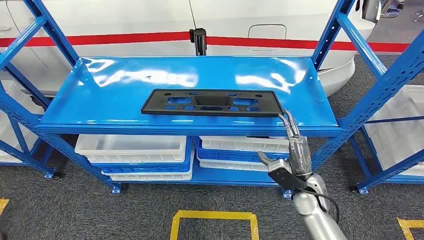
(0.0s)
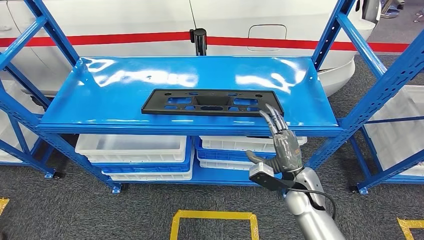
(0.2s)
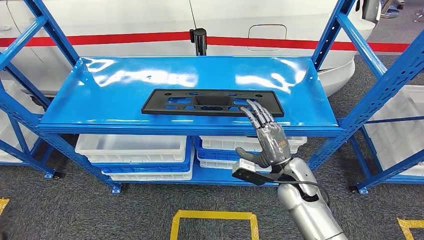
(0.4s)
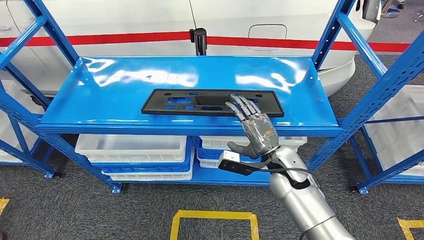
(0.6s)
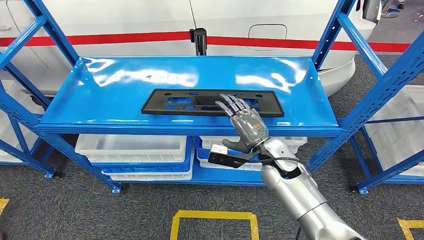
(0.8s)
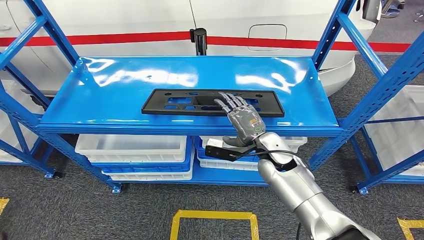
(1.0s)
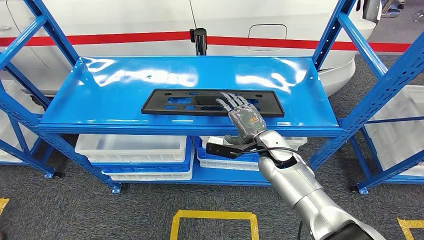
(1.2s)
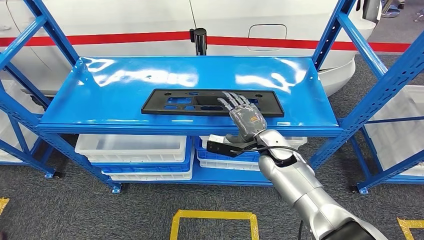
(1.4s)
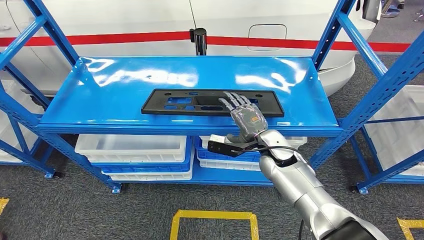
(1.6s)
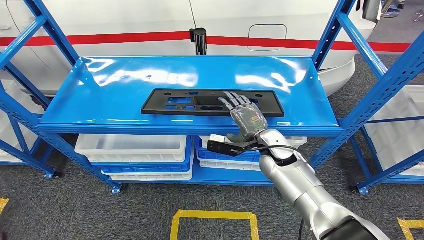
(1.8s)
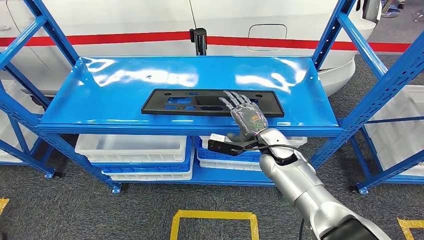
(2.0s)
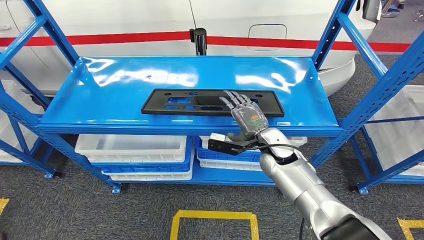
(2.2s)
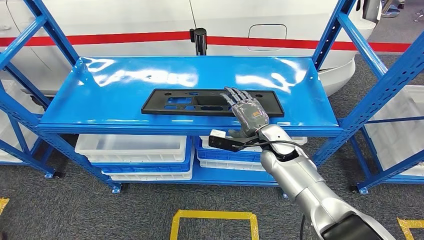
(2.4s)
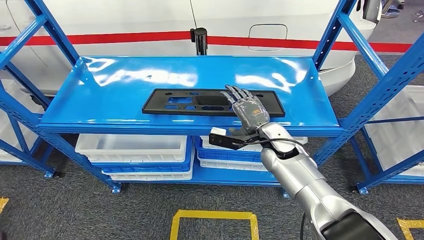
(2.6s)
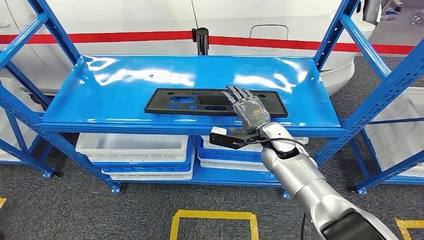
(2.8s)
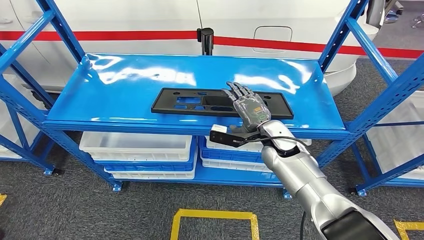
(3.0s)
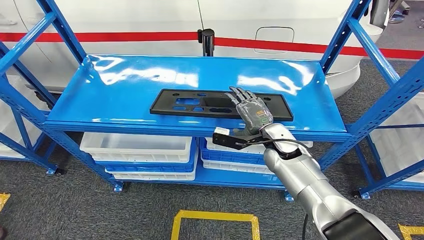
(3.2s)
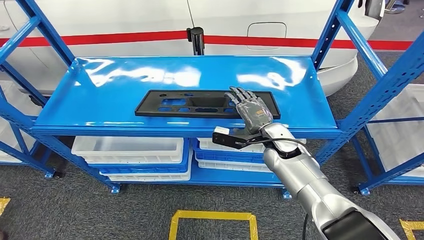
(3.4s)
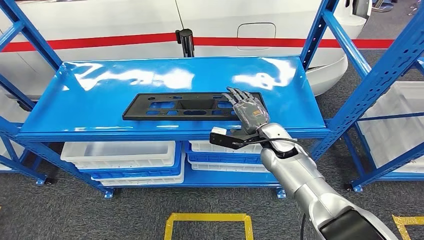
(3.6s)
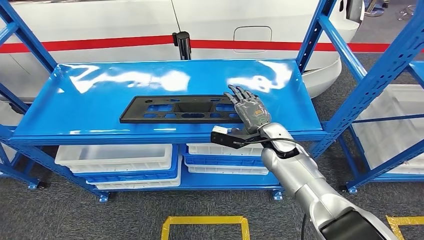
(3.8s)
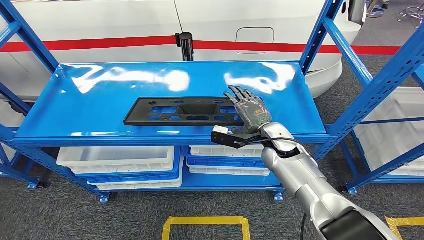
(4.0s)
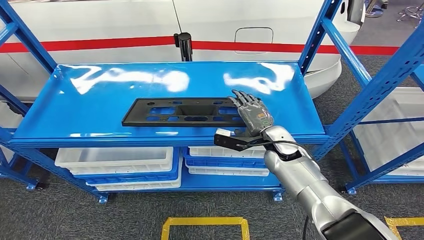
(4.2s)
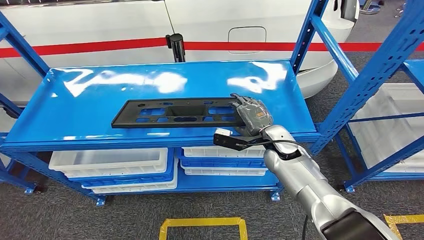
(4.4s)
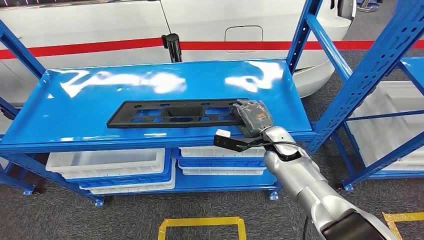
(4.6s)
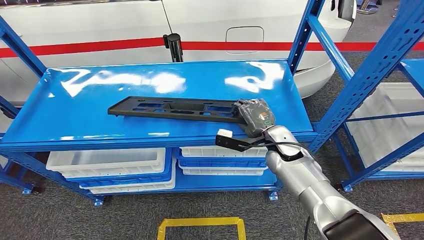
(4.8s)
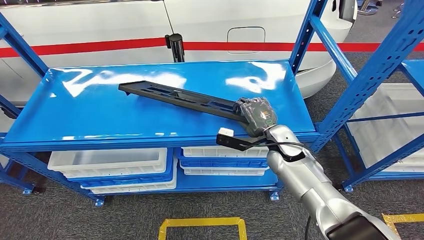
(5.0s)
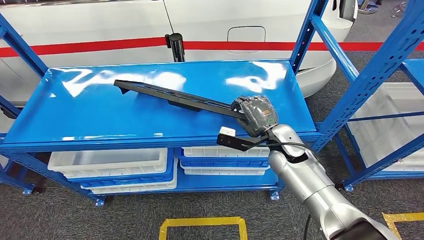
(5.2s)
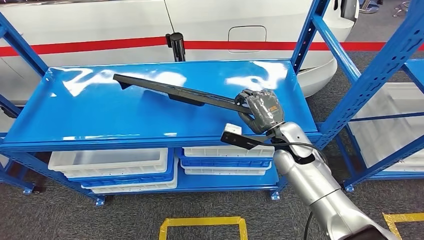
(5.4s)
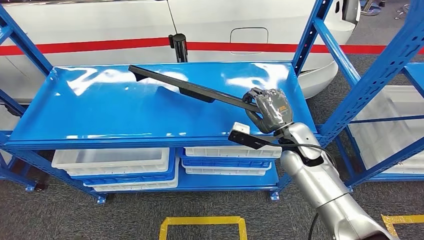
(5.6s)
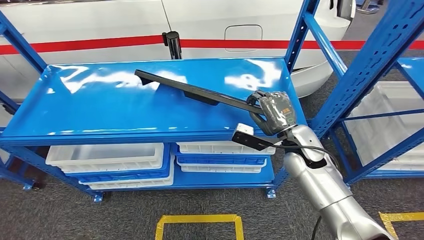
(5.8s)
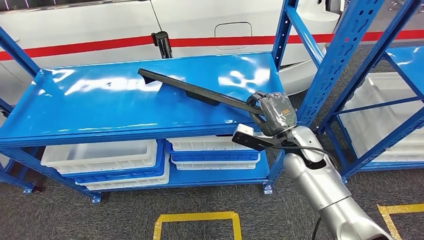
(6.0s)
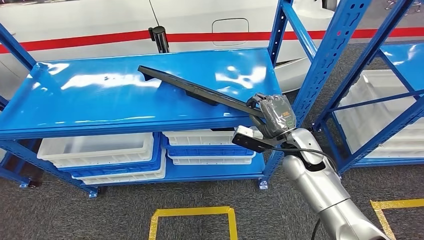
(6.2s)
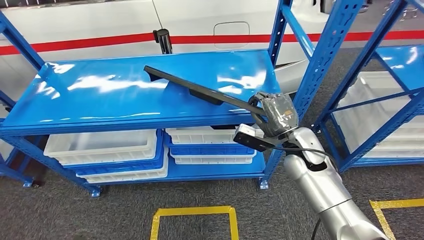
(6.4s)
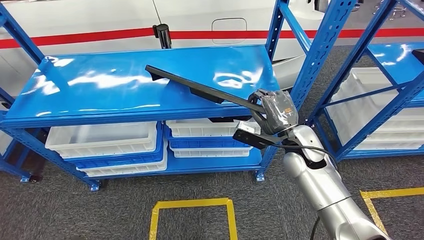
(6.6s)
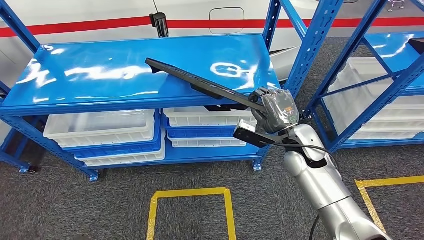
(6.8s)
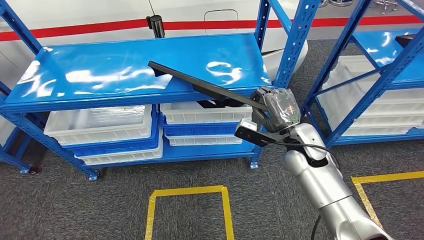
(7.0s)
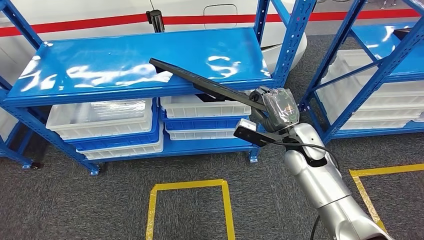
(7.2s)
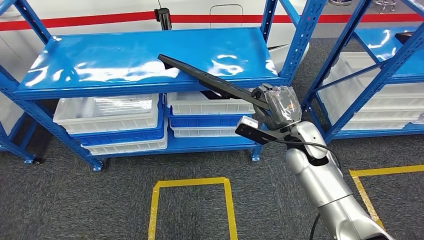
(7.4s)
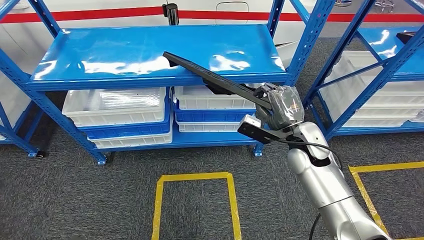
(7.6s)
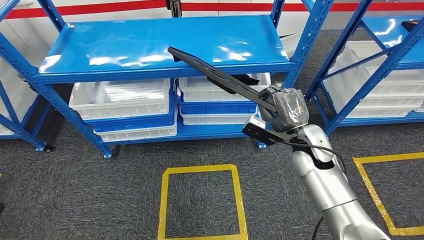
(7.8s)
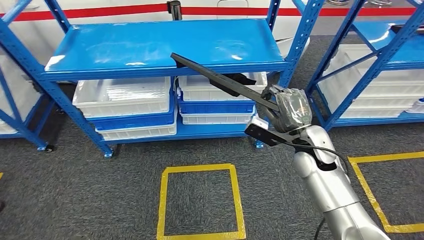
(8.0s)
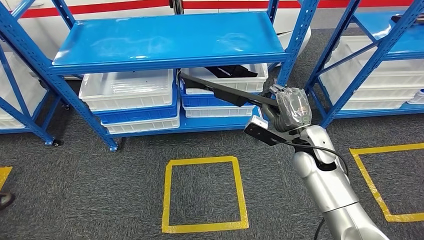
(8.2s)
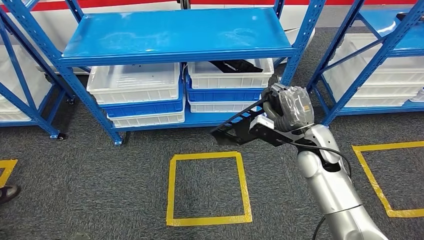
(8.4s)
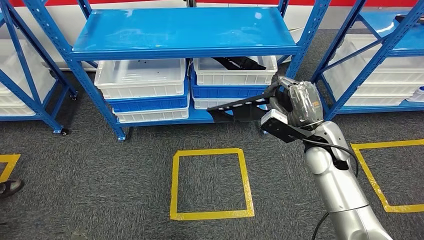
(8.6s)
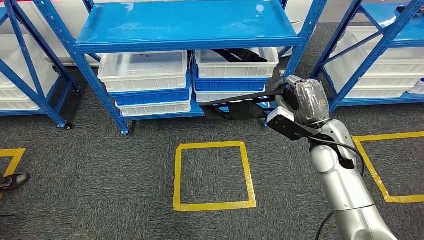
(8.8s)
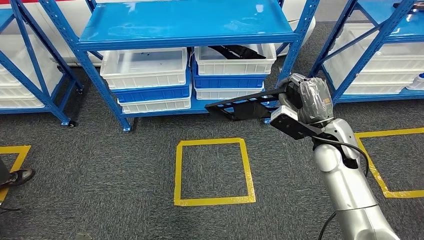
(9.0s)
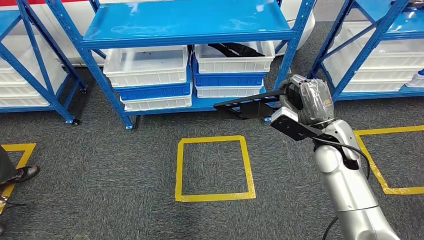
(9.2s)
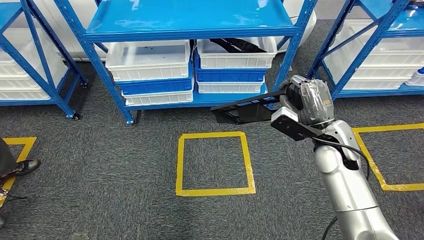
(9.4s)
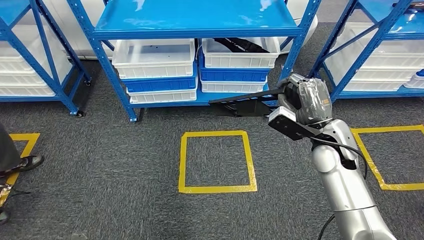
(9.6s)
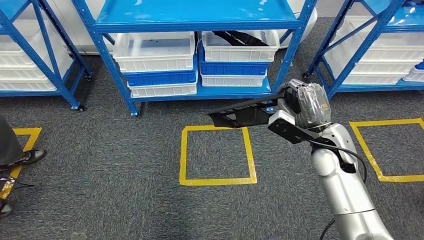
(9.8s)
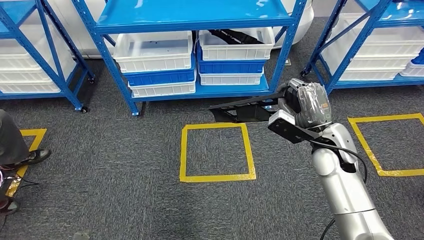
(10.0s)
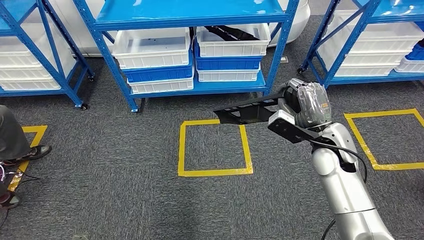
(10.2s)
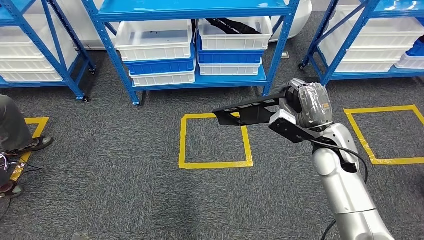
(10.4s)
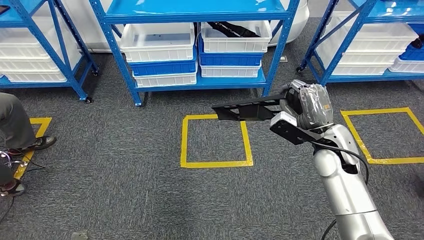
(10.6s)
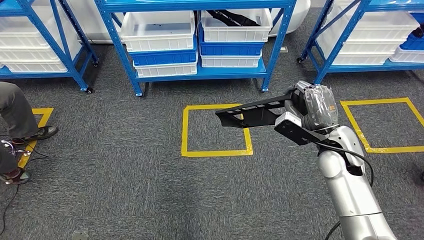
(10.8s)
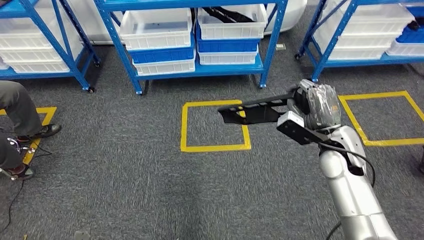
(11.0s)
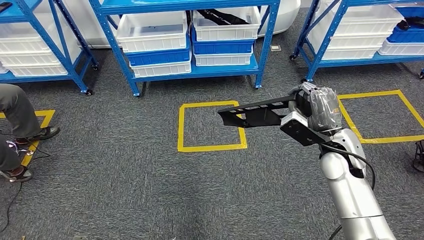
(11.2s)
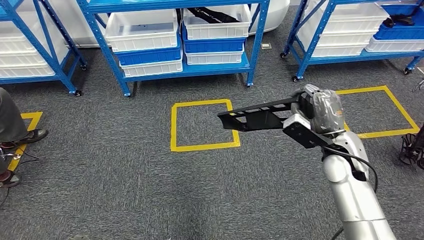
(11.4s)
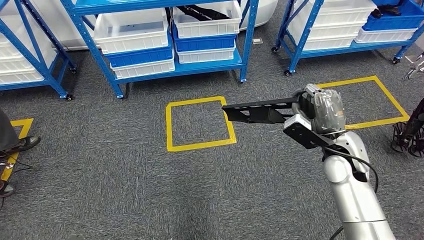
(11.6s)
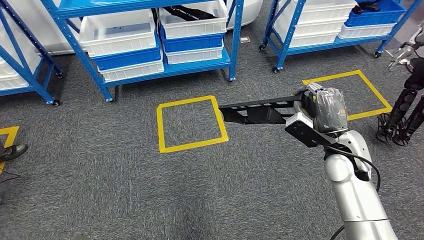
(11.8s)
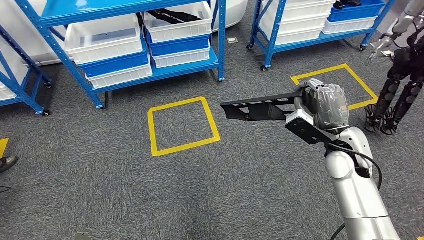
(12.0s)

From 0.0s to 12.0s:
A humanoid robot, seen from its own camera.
Step, from 0.0s to 8.4s: Pick up the large material from the shelf.

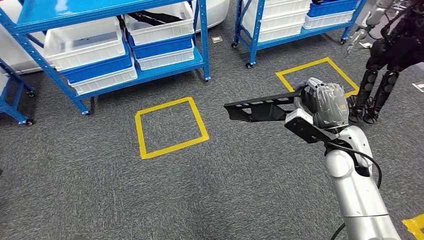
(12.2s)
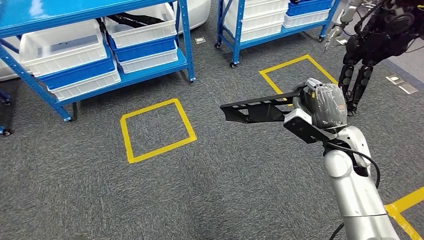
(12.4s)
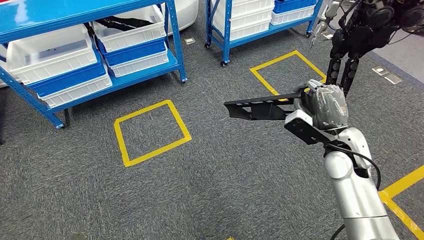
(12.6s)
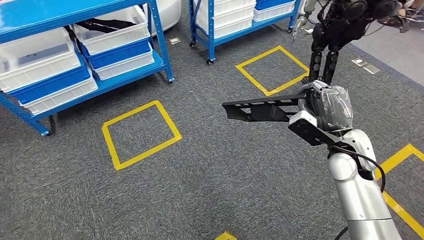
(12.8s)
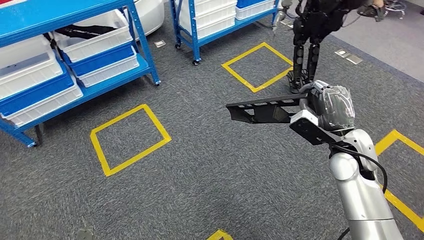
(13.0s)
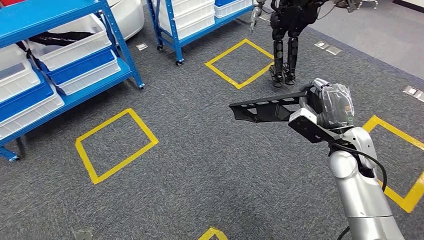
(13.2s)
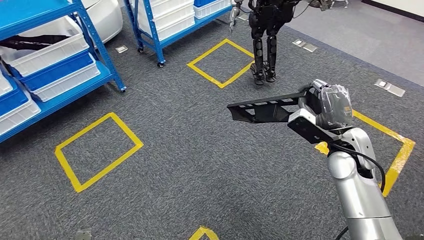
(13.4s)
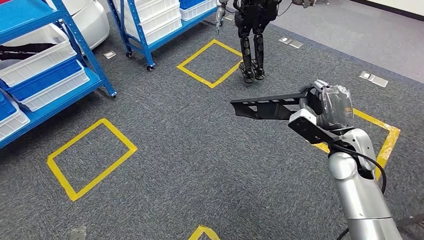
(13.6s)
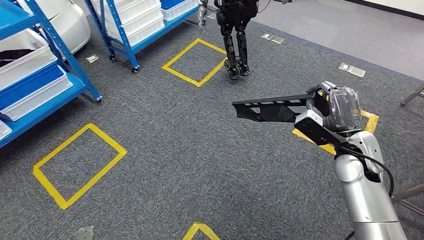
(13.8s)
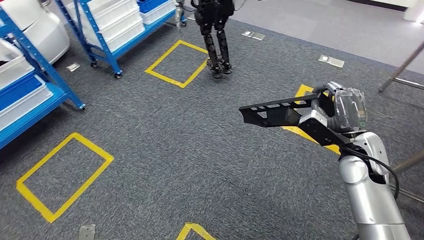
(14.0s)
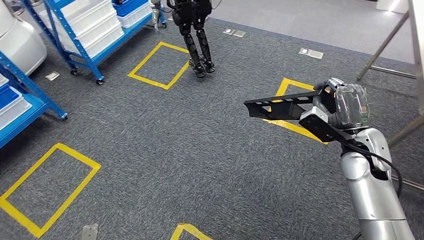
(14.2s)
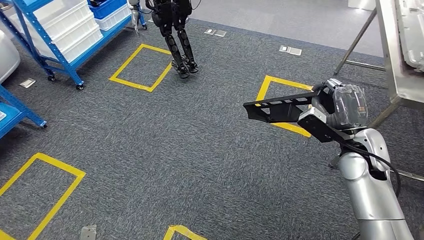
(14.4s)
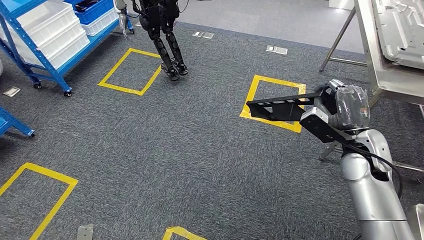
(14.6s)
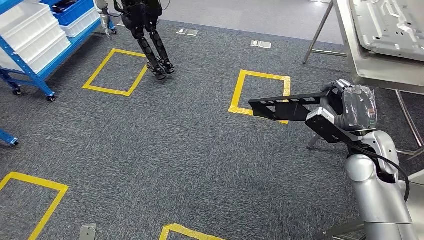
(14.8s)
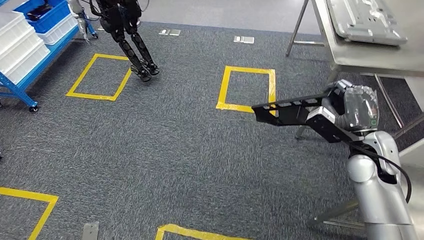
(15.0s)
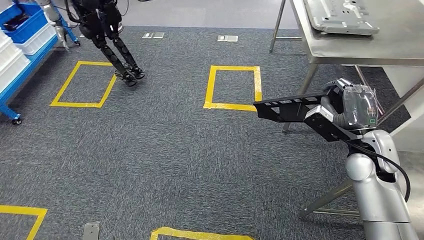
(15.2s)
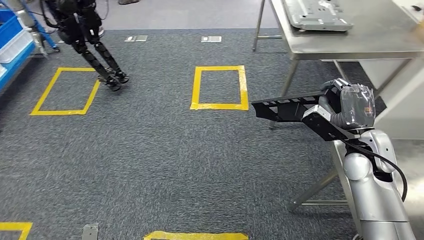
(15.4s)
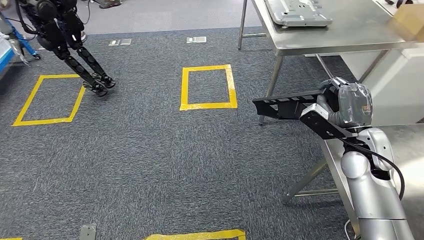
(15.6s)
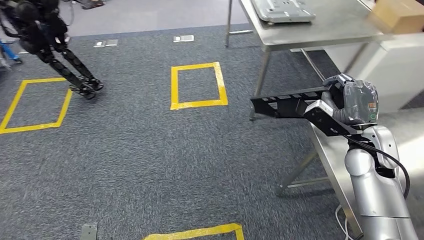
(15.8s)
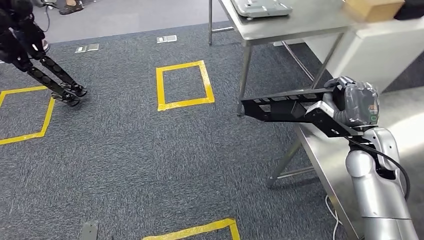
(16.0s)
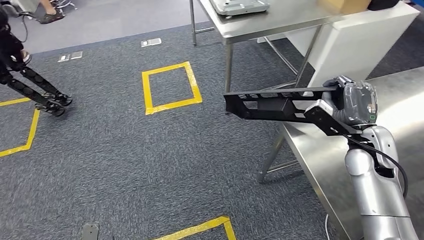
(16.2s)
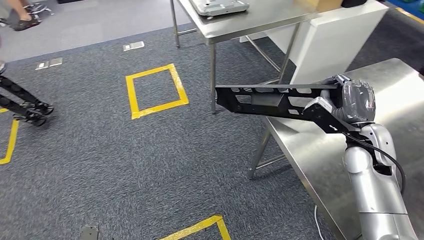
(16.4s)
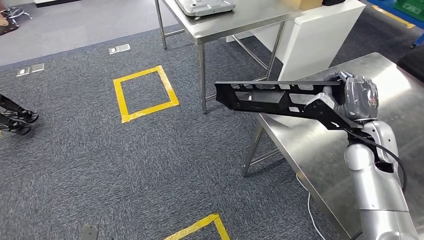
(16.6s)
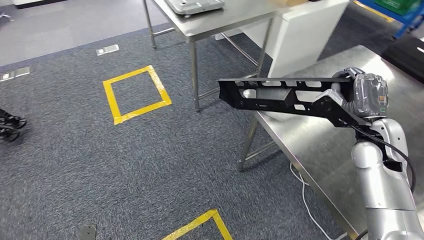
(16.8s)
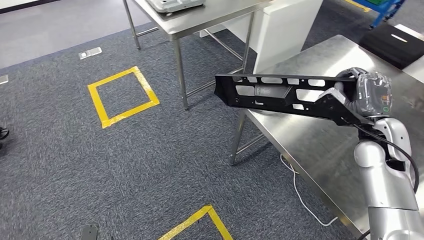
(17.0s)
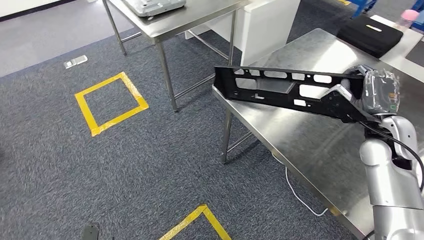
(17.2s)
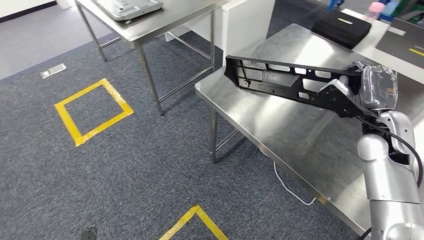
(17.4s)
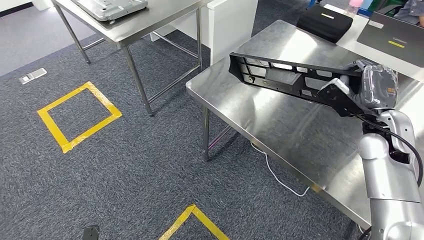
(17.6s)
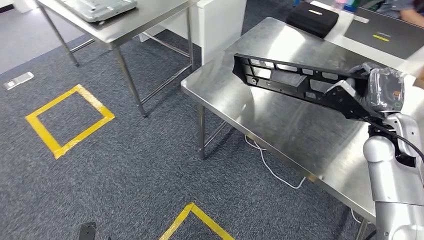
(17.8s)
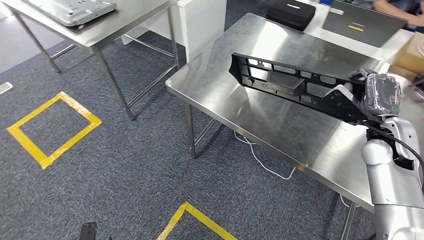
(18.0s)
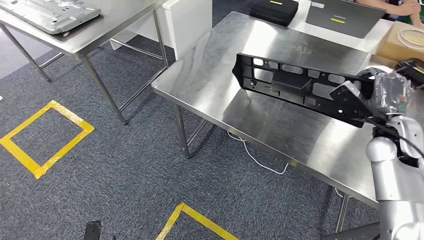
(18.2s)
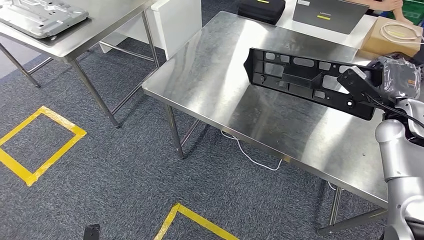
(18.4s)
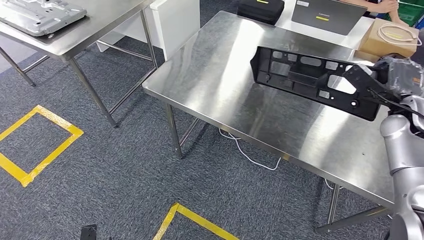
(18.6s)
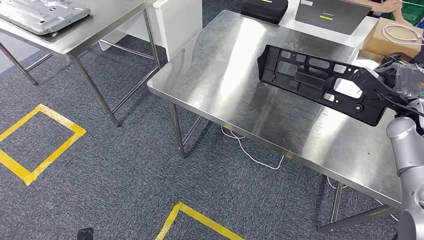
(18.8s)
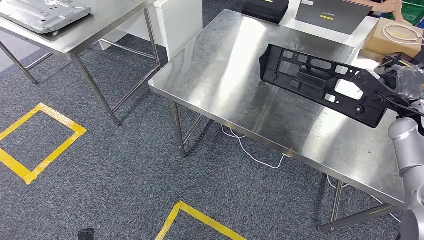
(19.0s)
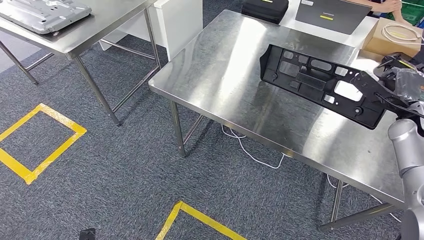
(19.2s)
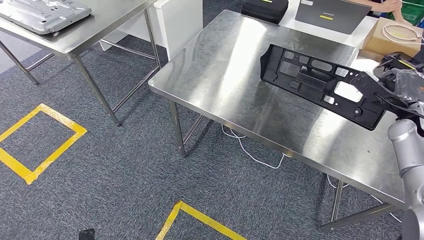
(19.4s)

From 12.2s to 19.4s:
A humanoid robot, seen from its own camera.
Step, from 12.2s to 16.4s: Move the large material to the workbench.
